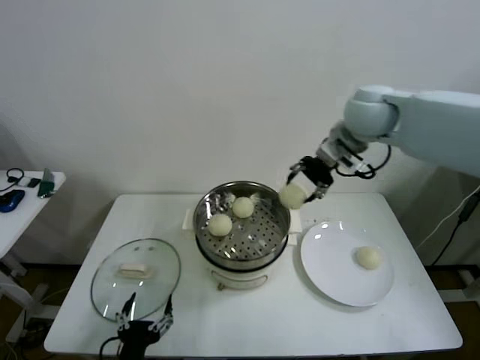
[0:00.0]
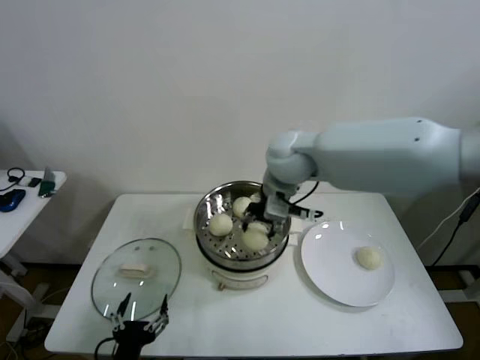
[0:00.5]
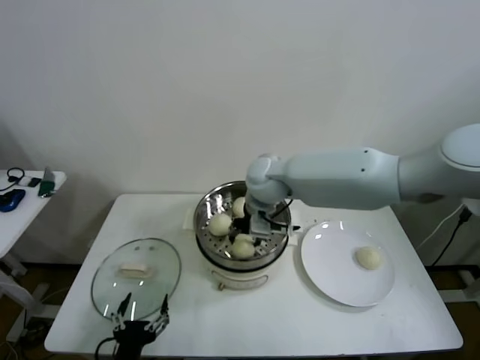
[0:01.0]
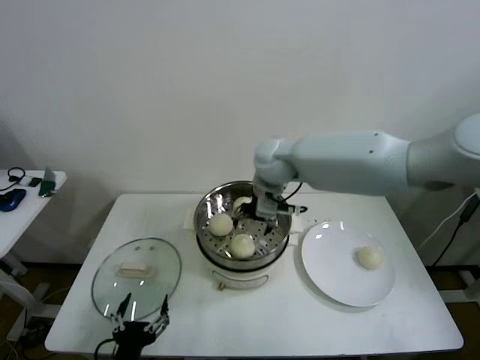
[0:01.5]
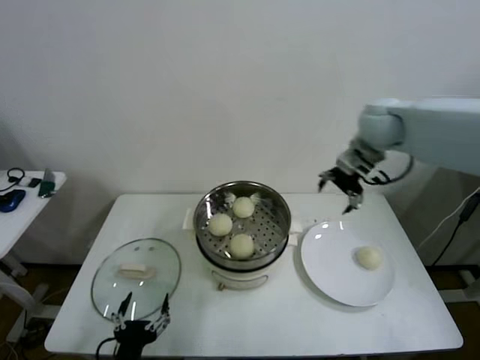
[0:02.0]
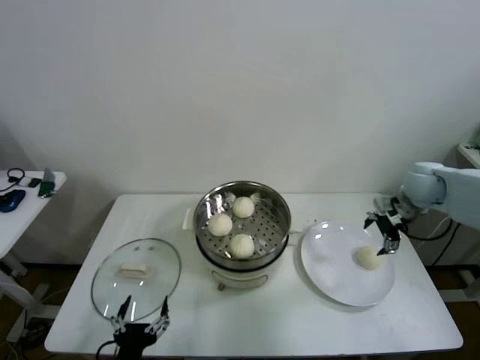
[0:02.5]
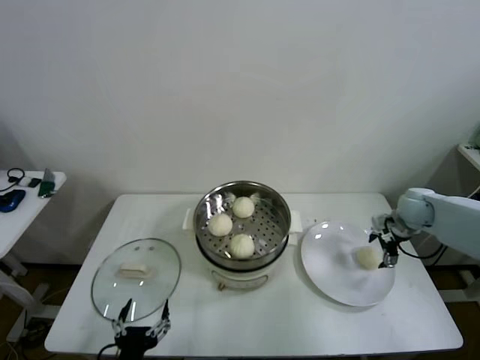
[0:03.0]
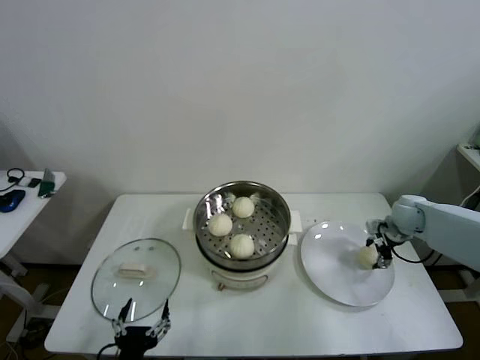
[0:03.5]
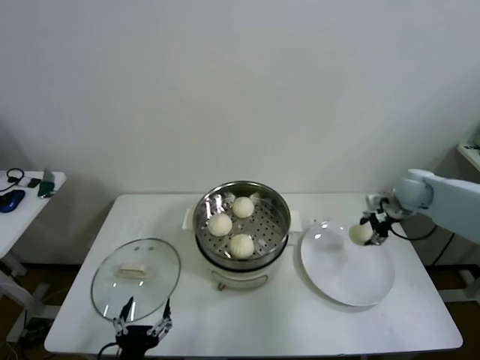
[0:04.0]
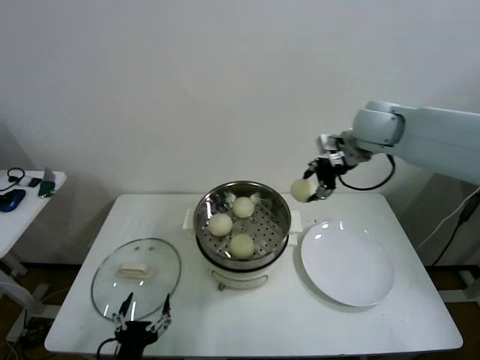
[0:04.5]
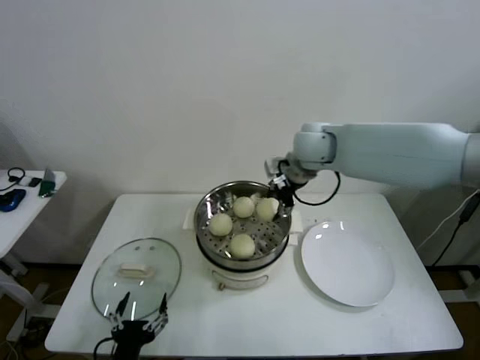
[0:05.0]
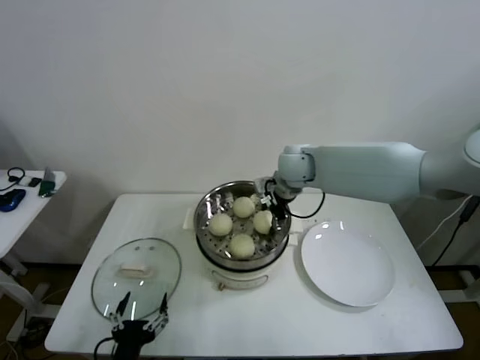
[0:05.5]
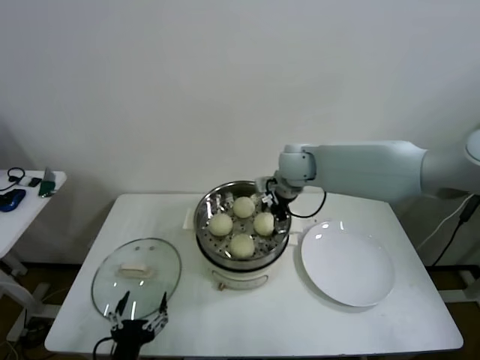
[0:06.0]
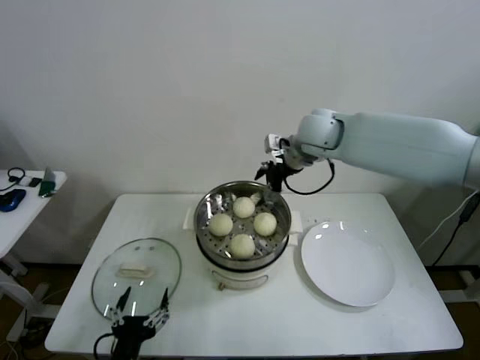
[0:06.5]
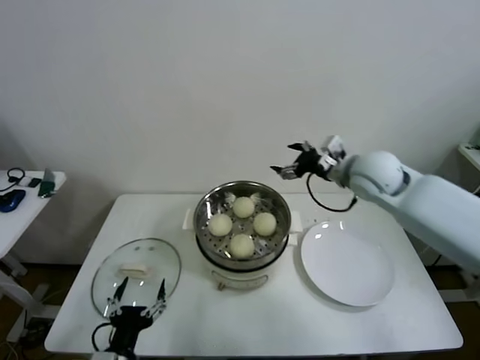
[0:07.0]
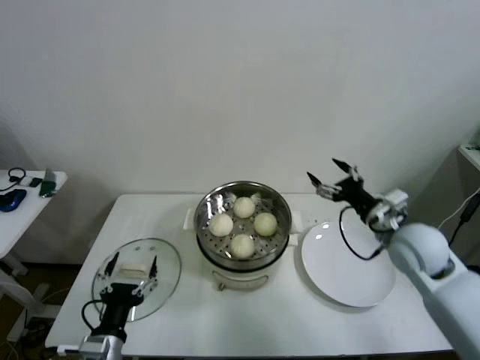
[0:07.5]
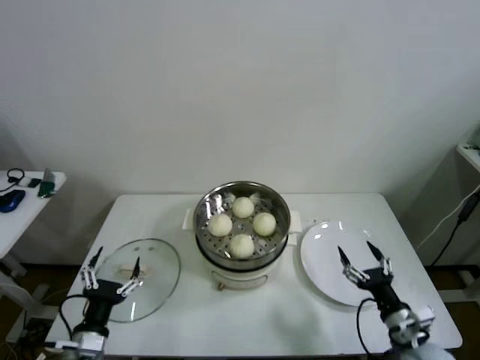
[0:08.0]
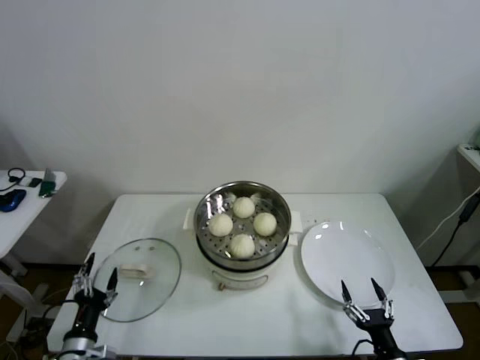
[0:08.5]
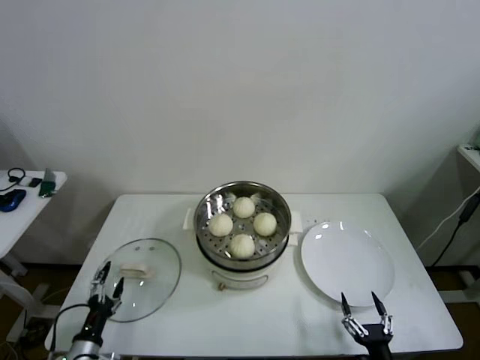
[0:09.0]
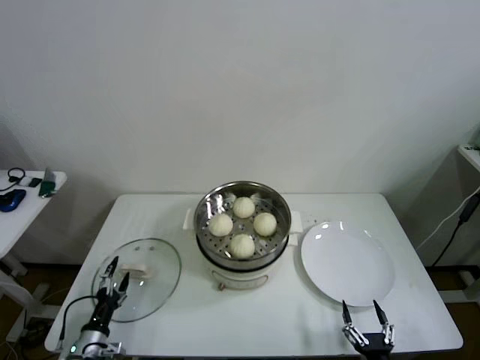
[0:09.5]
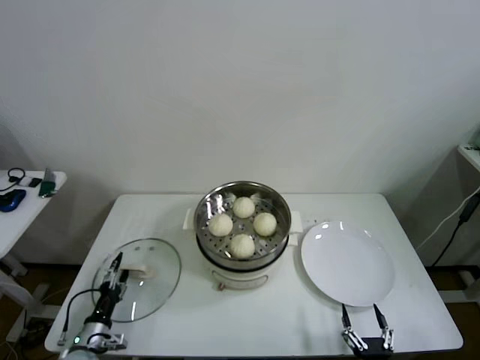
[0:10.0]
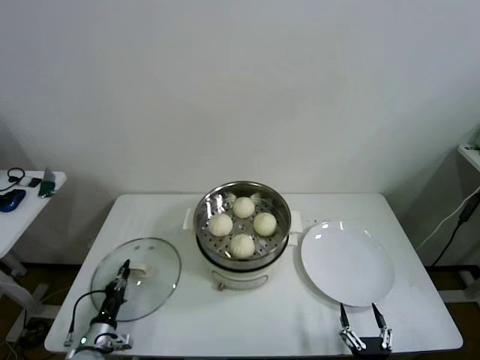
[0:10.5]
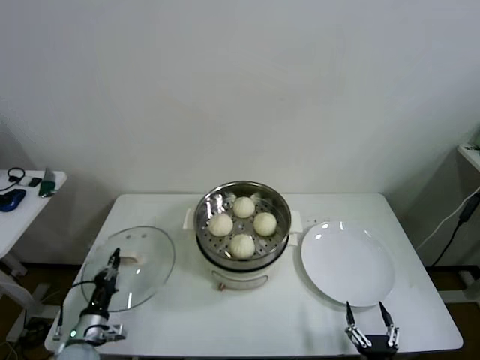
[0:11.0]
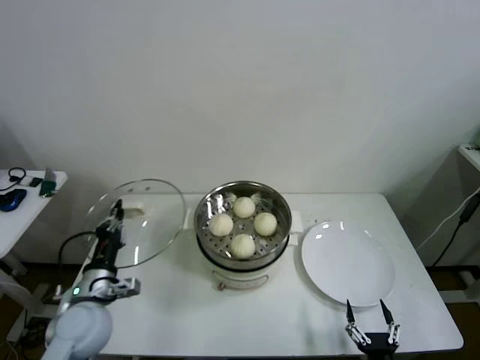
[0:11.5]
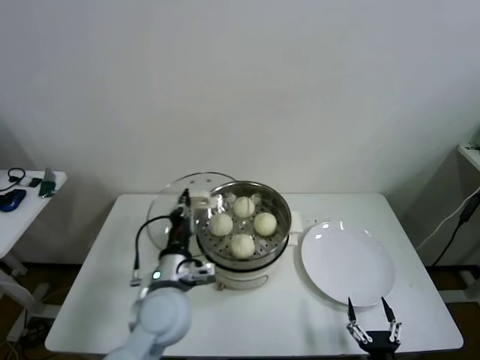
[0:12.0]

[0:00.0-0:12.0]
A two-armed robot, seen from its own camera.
Step, 0.0 to 1.0 s: Place the baozi on the steamer with right gripper.
Step, 1.5 to 3.5 s: Grasp the baozi in the plate with right gripper.
Step, 4.0 to 5.5 s: Place the baozi on the steamer with right gripper.
Step, 6.0 to 10.5 s: Grasp the pot lid with left gripper.
0.0 to 2.0 s: The right gripper travels to the right by about 10 cm, and opens up.
2.0 to 4.0 s: The right gripper moves downward and to the right, some 20 cm, and closes up.
4.0 to 6.0 s: The right gripper goes approximately 30 cm to the left, and opens its fingers.
6.0 to 8.0 s: The right gripper shifts about 50 cm backward, downward and to the right. The left gripper travels to the left and forward by about 10 cm.
8.0 to 10.0 s: The right gripper heads backward and downward, covering roughly 20 cm, while the left gripper moves downward and to the left, about 15 cm.
10.0 to 12.0 s: The left gripper goes approximately 30 cm upward and to the right, and closes its fingers.

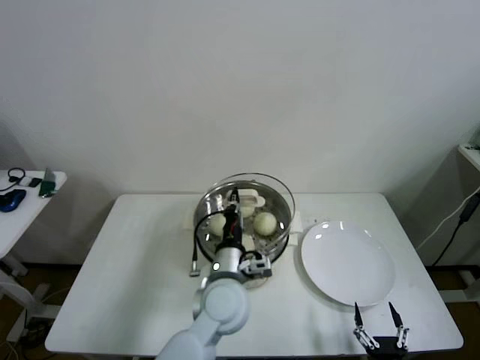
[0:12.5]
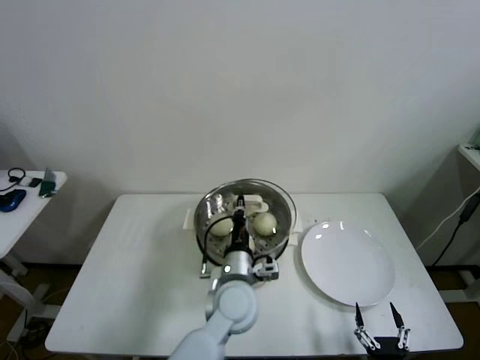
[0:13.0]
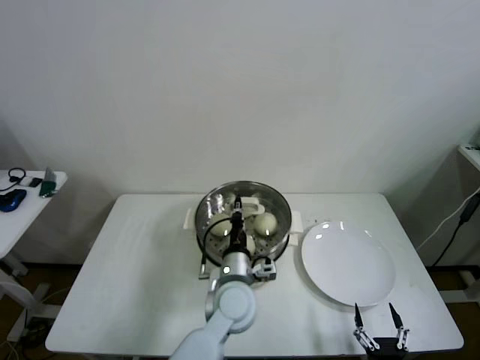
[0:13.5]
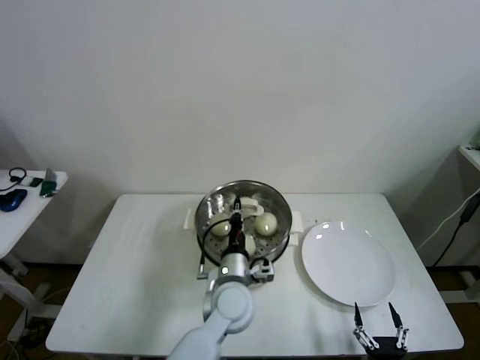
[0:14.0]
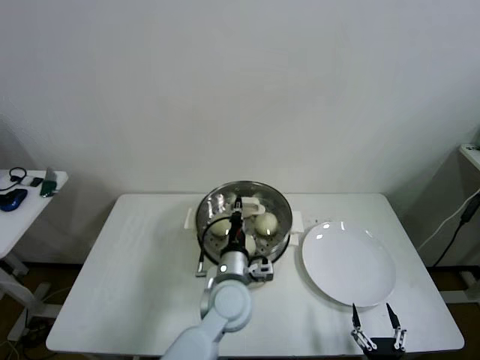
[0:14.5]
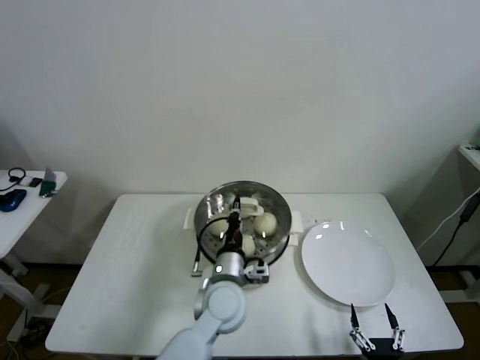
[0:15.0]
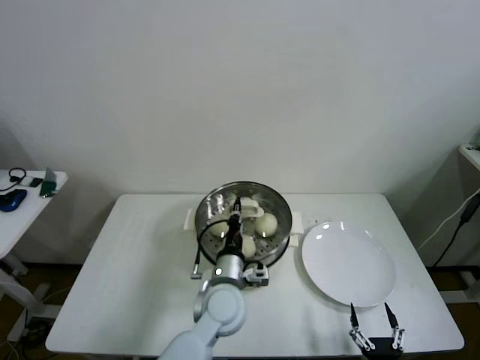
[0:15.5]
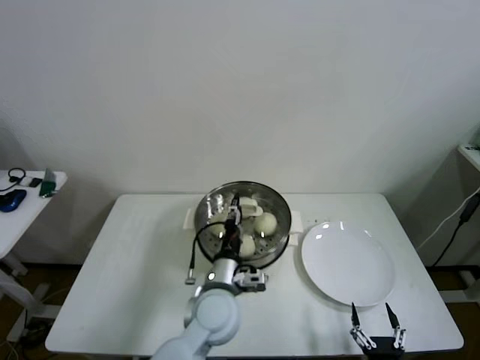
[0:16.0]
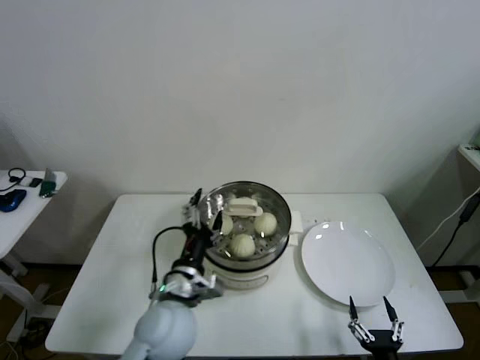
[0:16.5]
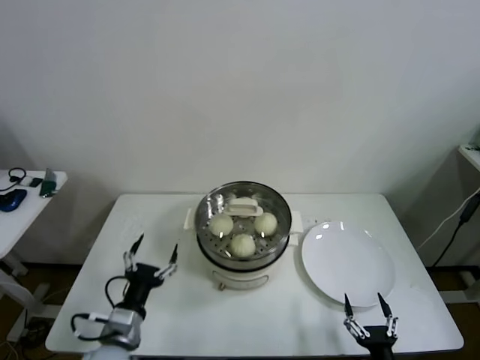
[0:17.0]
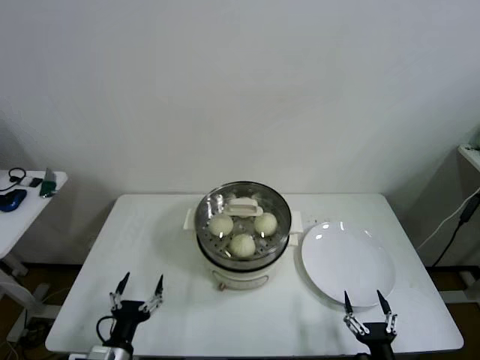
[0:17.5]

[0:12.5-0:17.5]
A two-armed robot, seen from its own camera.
Step, 12.5 to 15.5 s: Place the pot lid on the steamer with left gripper.
12.5 to 15.0 s: The grippers move only a little.
15.0 to 17.5 s: The left gripper moves to the left and backward, roughly 30 cm, and opens.

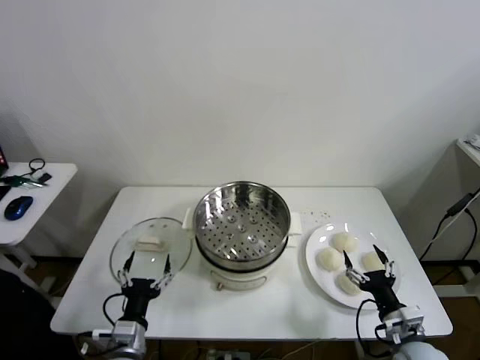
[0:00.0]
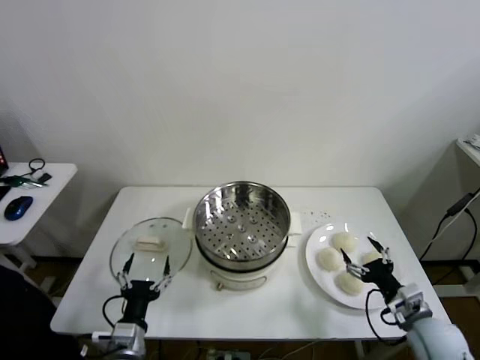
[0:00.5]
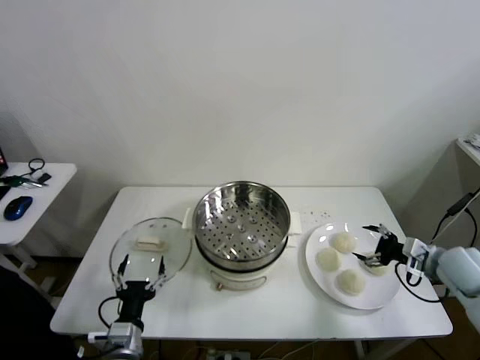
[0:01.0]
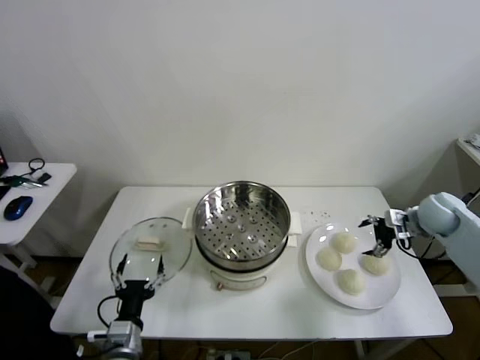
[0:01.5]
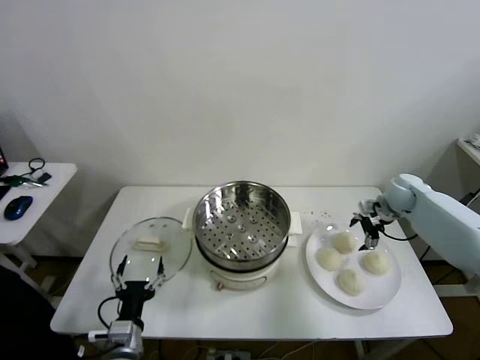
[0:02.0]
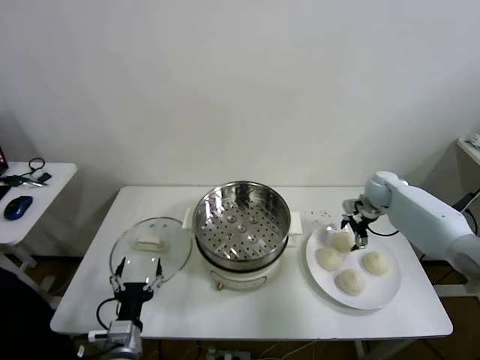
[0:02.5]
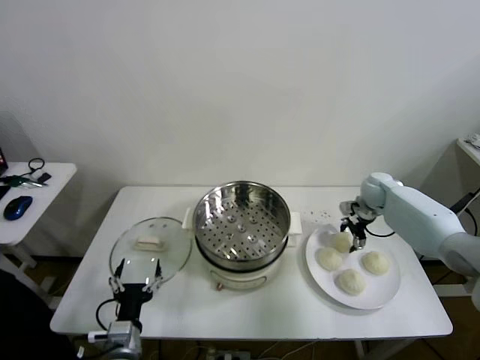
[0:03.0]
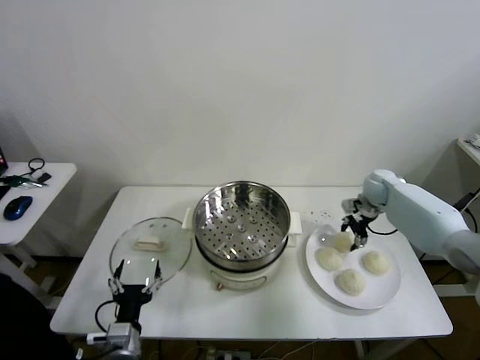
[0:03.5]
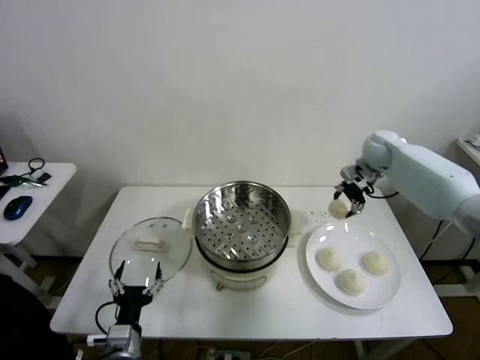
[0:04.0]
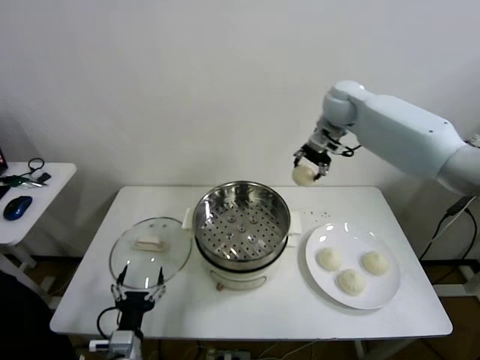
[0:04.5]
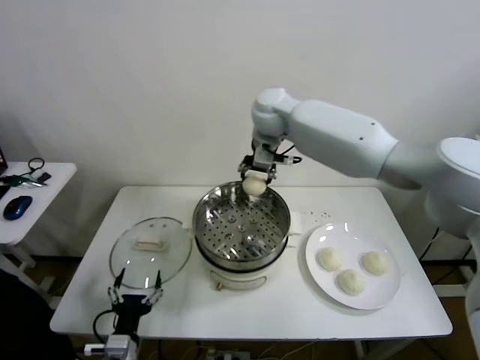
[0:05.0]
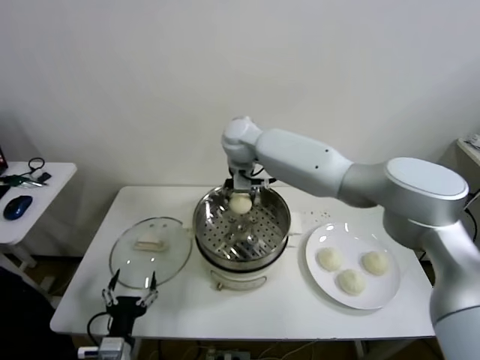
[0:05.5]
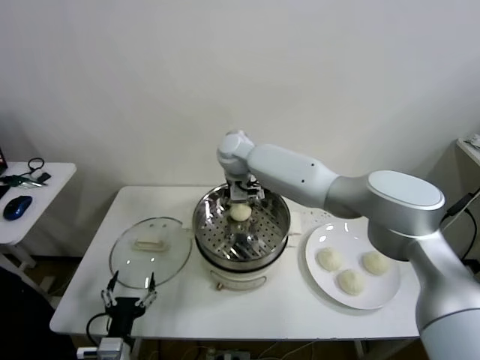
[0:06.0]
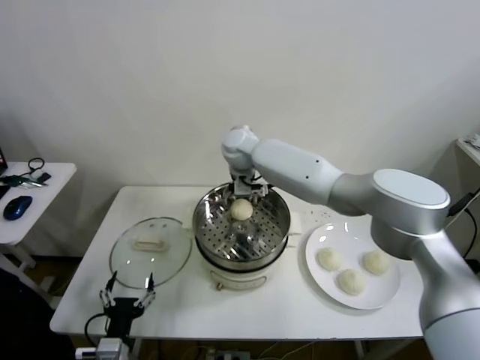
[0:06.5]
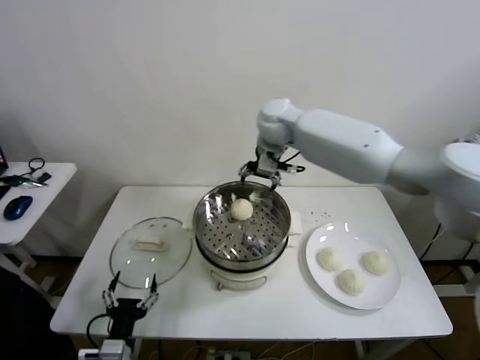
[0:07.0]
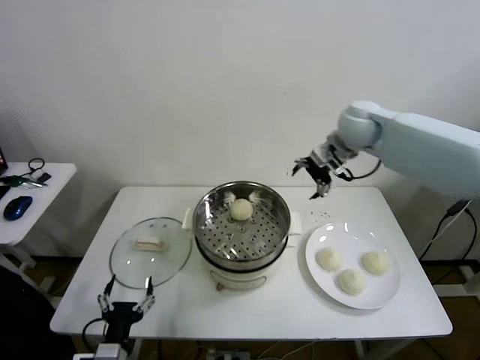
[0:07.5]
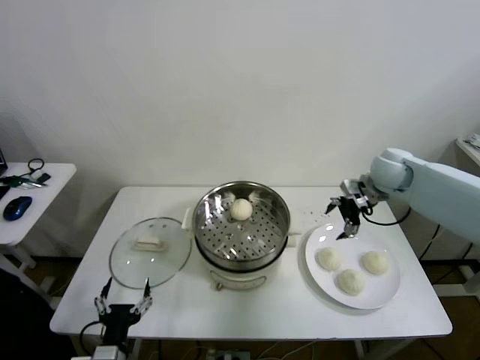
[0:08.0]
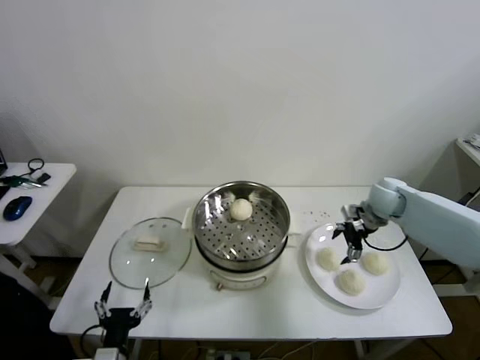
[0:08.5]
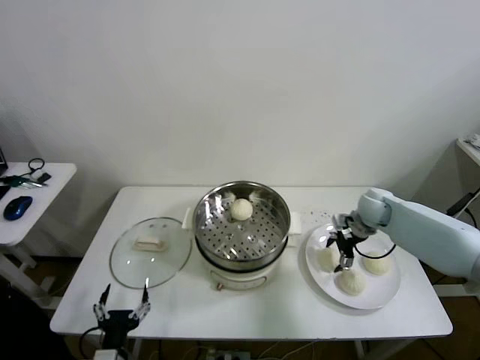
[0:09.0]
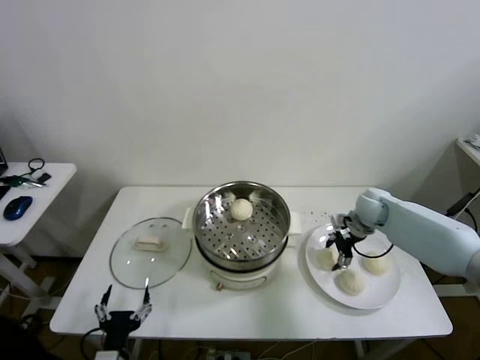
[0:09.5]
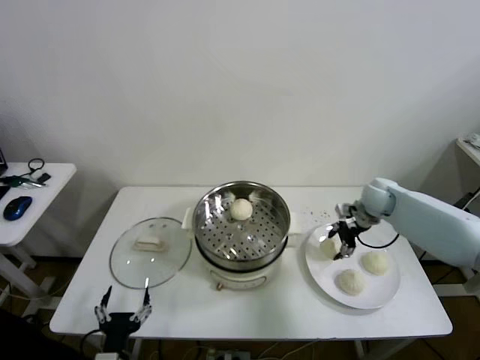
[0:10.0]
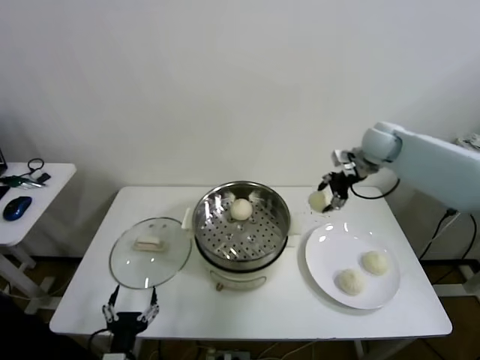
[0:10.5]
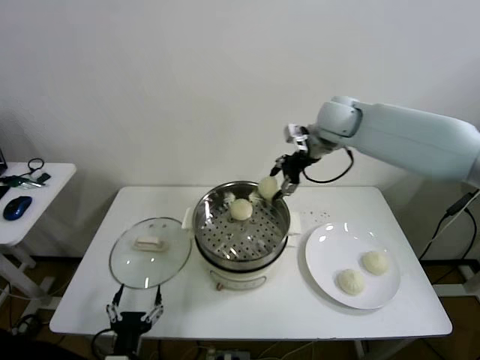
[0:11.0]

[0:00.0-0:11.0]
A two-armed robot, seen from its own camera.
Step, 0.0 to 3.0 s: Grasp the baozi in the plate with right gripper.
Step, 3.5 to 6.0 s: Place the baozi on the steamer with right gripper.
Step, 7.0 to 9.0 s: Grasp the baozi in the plate with right gripper.
2.0 to 3.5 s: The right gripper closes its fingers.
3.5 to 5.5 s: The right gripper goes approximately 40 cm to the left.
5.5 to 7.5 s: The right gripper is displaced to the right by approximately 30 cm, and opens.
7.5 to 9.0 s: The right gripper moves downward, approximately 20 cm.
9.0 to 11.0 s: The right gripper is displaced upward and to the left by approximately 30 cm, and closes.
